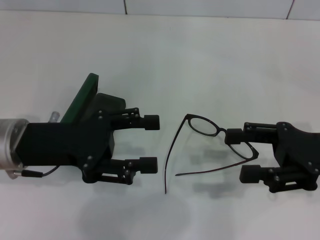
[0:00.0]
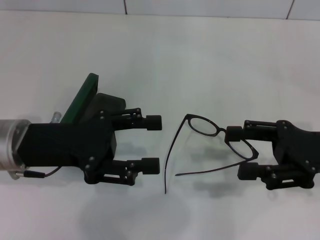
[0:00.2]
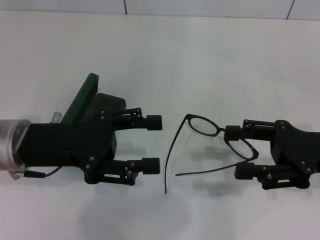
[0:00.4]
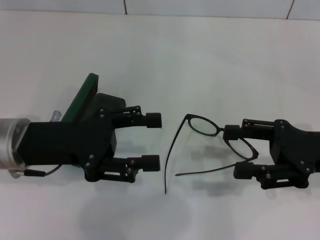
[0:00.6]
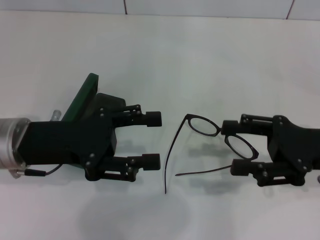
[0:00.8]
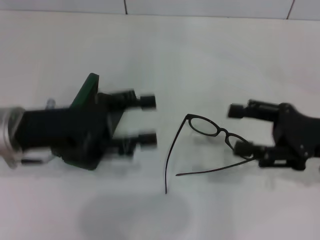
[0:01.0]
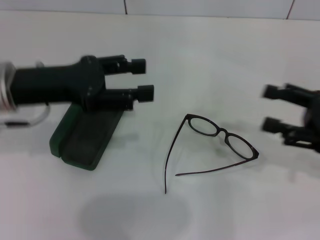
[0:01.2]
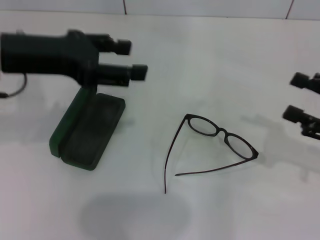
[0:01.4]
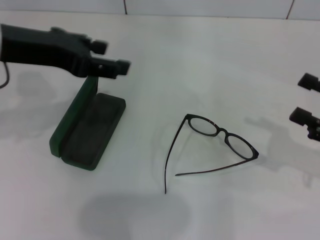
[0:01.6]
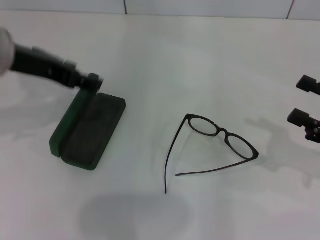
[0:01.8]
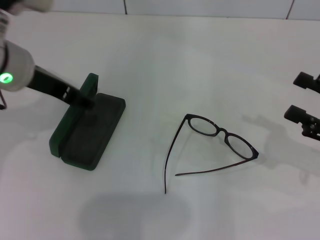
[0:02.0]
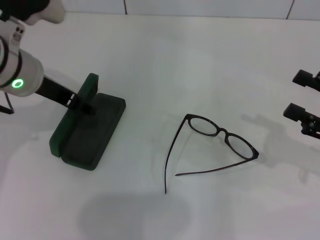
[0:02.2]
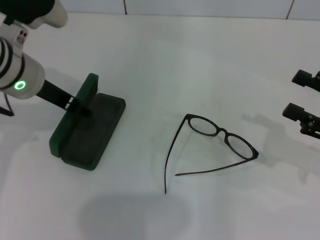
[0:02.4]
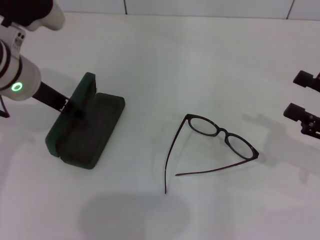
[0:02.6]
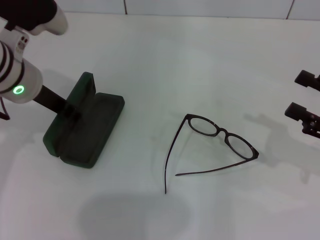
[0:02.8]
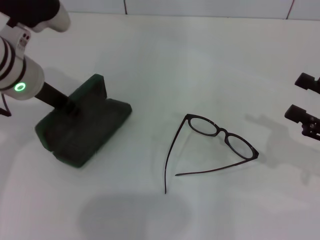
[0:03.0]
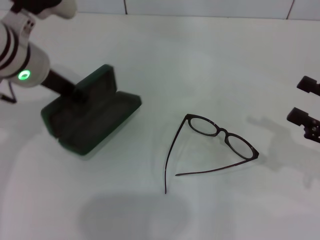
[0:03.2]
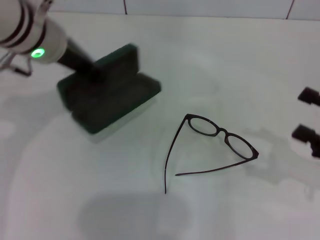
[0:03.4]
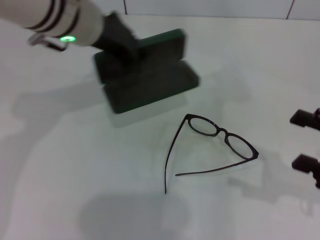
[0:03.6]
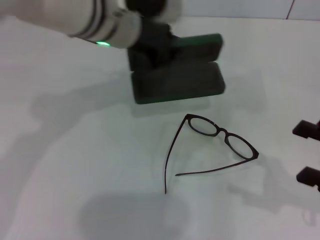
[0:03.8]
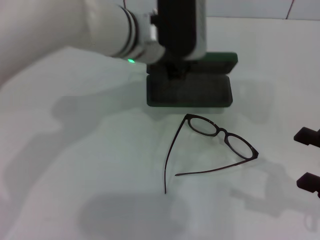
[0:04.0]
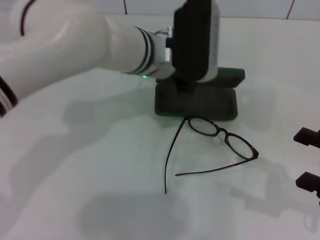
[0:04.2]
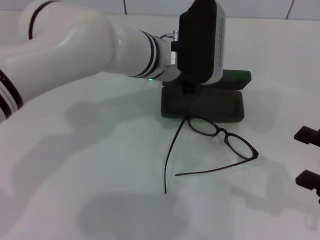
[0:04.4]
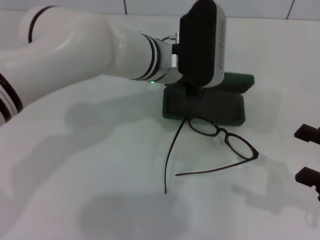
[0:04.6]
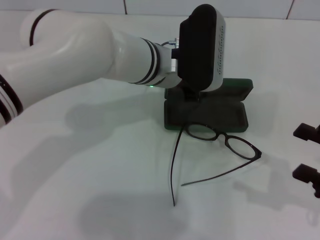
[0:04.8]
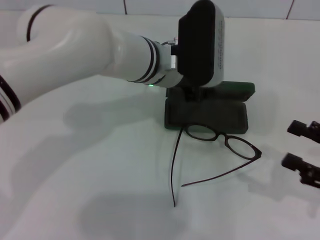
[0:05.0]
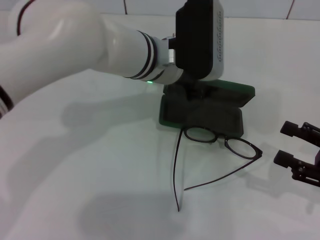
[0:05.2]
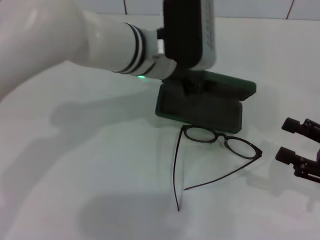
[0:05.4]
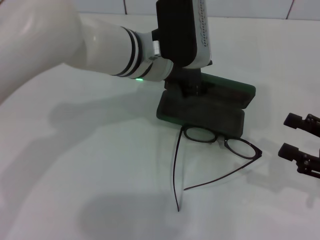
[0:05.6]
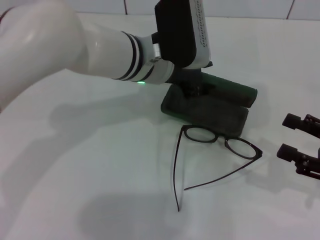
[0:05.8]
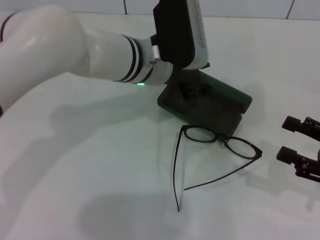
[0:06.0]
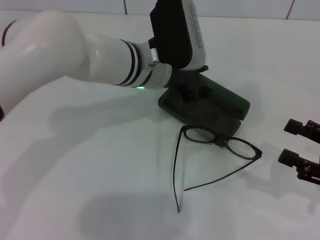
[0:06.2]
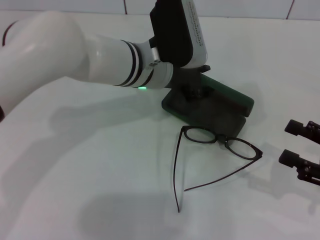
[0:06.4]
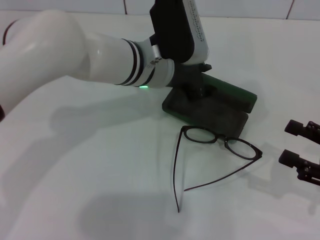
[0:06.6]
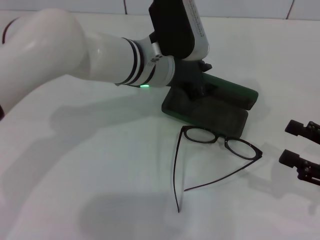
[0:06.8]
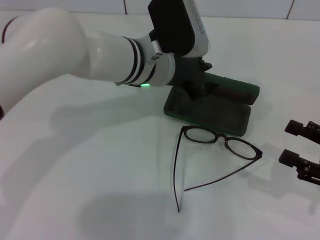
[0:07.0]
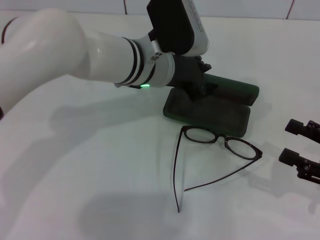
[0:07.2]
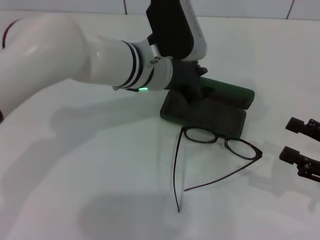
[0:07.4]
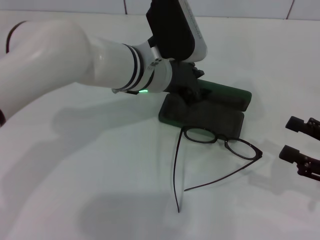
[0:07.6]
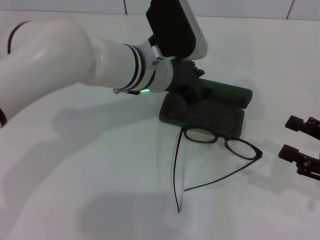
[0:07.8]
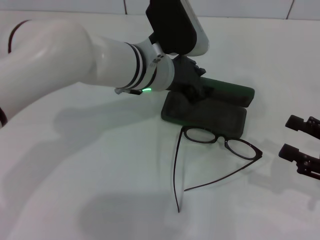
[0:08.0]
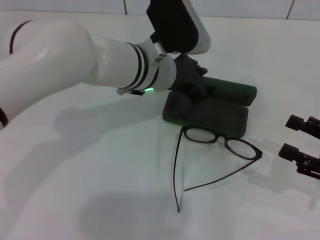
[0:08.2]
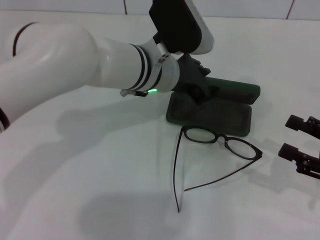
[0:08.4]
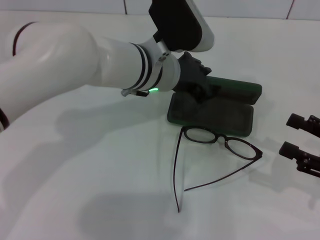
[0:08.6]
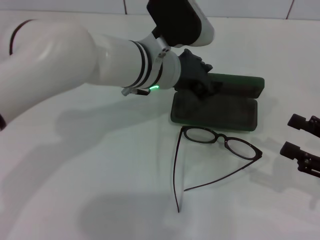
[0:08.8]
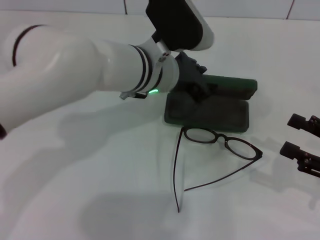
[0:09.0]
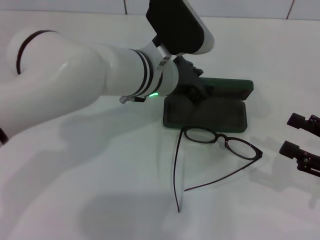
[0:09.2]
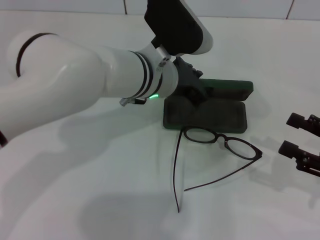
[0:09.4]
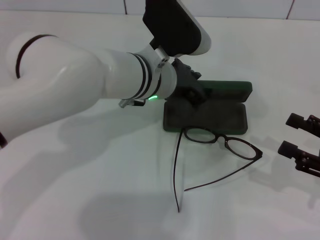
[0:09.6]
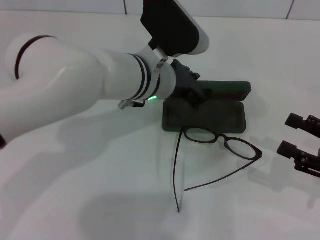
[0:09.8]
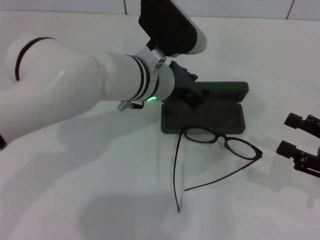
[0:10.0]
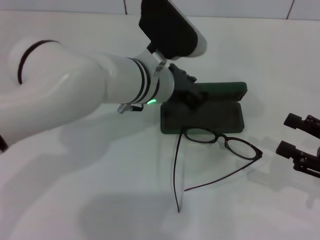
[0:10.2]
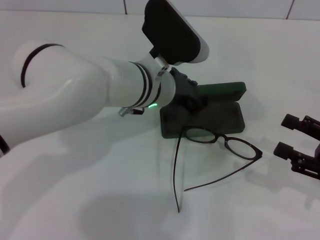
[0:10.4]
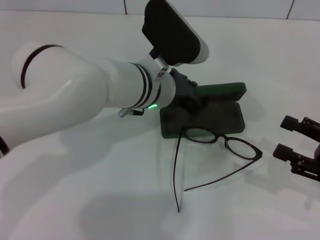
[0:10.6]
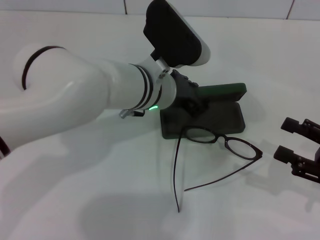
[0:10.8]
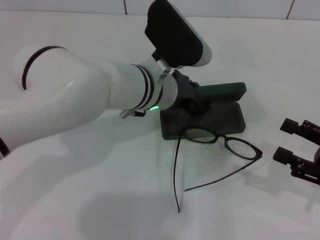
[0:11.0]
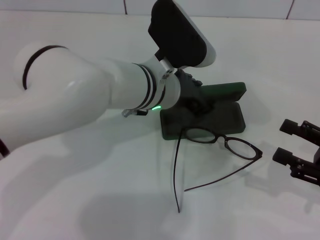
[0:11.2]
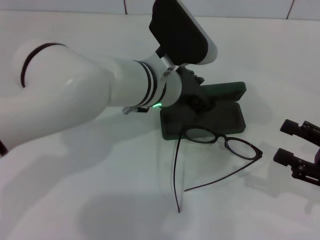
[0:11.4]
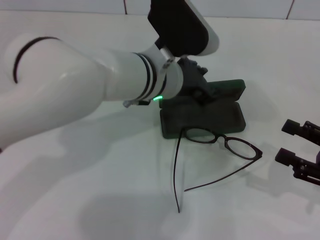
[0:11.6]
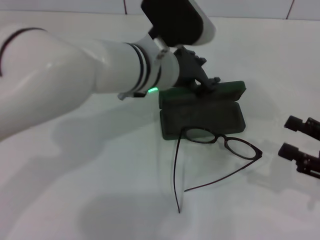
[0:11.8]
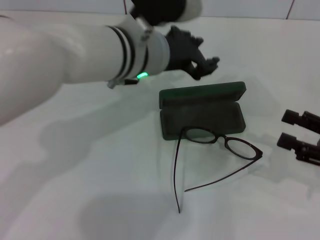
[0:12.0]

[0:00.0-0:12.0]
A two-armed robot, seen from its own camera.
Step, 0:00.0 to 0:02.8: Grab the glasses case with your left hand.
Step, 0:03.2 to 0:11.2: Place the glasses case in the center of the table with your left hand.
0:00.0 to 0:01.6: The left gripper heads upward, covering about 15 cm. Meanwhile the right gripper shifts some 5 cm to the right.
0:01.6 to 0:03.0: The left gripper goes roughly 10 cm downward, and closes.
0:03.0 to 0:04.4: The right gripper moves backward, some 5 cm. Meanwhile the left gripper shifts some 15 cm to the right, and closes.
0:04.4 to 0:06.0: The left gripper opens its fingers.
0:06.0 to 0:07.6: There are only small adjustments of the grippers.
0:07.6 to 0:10.4: The grippers move only a little.
0:10.4 to 0:12.0: The left gripper travels upward by some 5 cm.

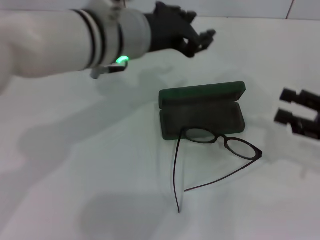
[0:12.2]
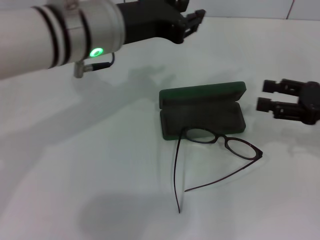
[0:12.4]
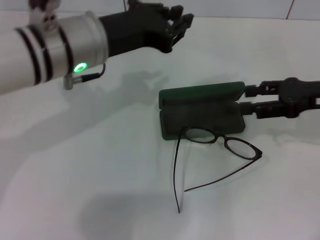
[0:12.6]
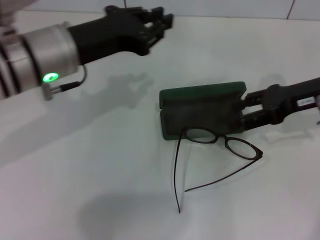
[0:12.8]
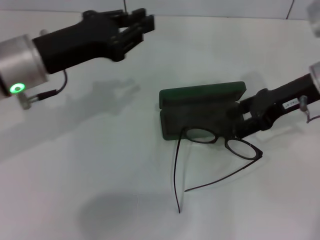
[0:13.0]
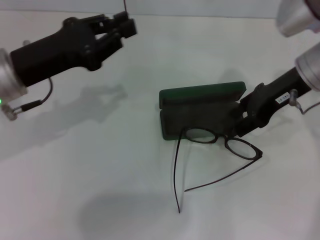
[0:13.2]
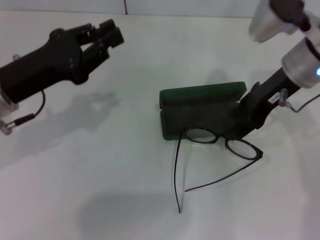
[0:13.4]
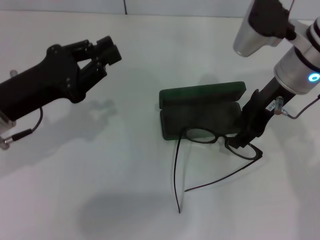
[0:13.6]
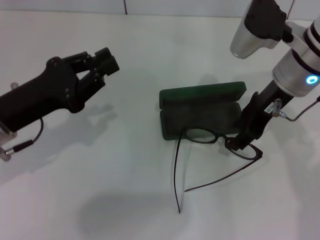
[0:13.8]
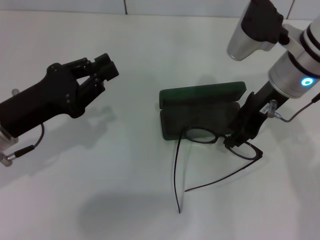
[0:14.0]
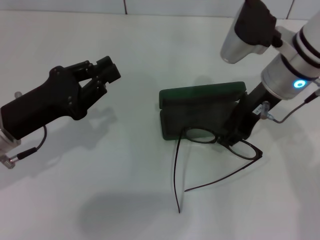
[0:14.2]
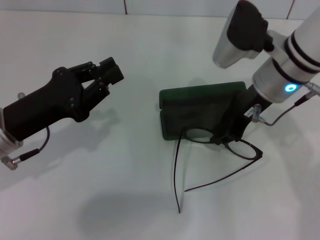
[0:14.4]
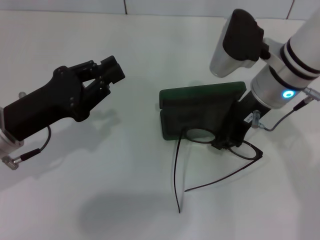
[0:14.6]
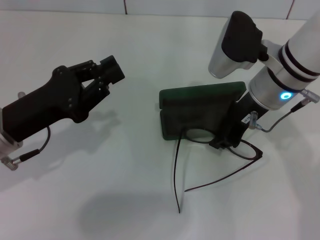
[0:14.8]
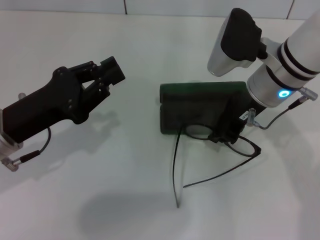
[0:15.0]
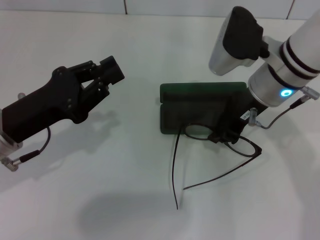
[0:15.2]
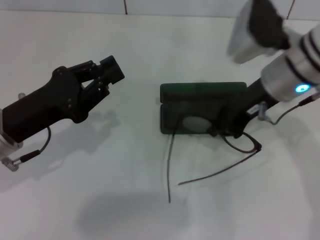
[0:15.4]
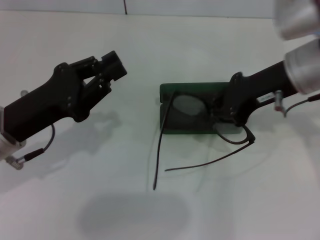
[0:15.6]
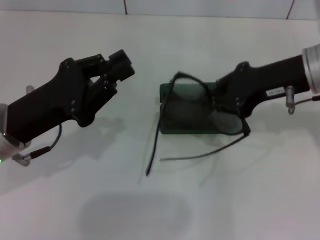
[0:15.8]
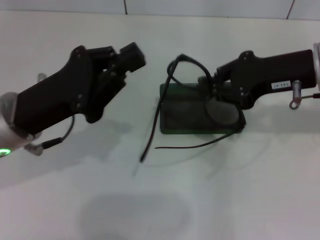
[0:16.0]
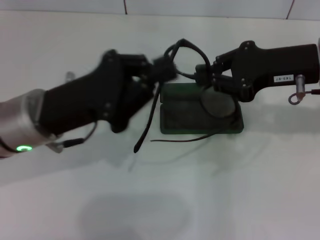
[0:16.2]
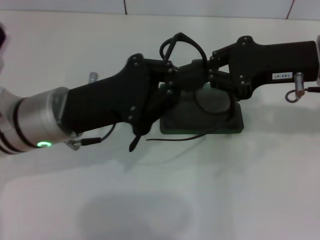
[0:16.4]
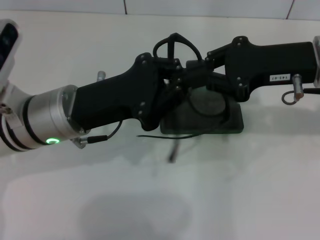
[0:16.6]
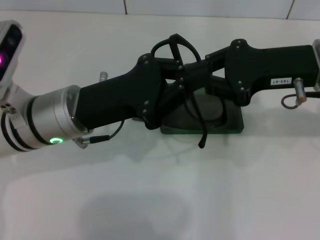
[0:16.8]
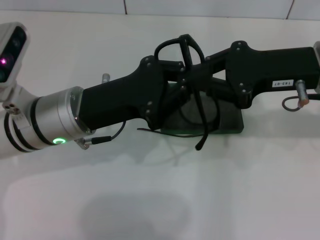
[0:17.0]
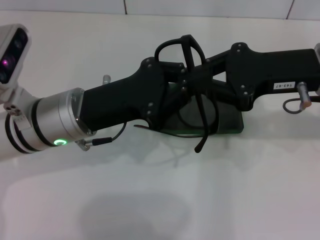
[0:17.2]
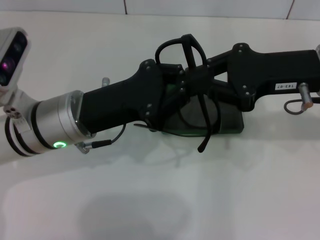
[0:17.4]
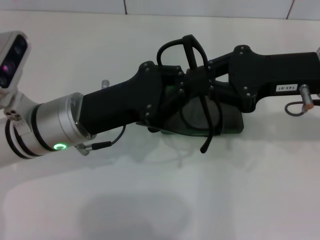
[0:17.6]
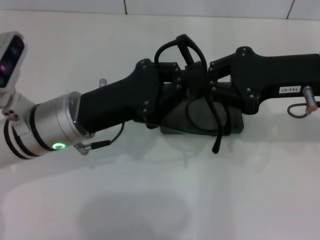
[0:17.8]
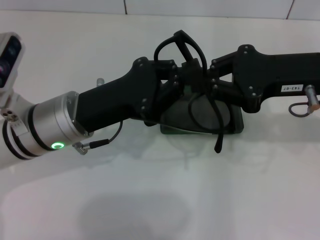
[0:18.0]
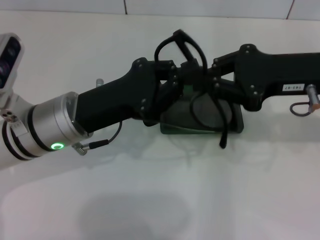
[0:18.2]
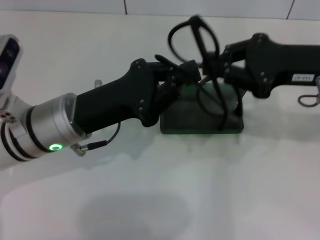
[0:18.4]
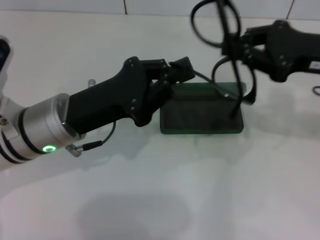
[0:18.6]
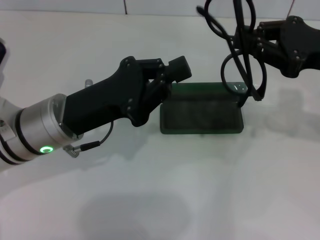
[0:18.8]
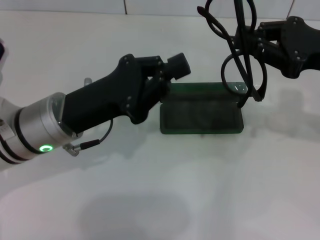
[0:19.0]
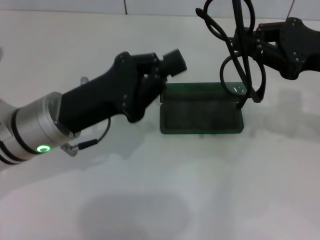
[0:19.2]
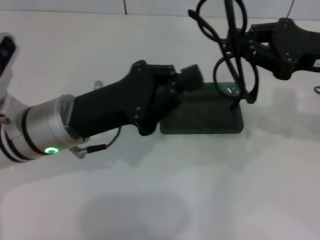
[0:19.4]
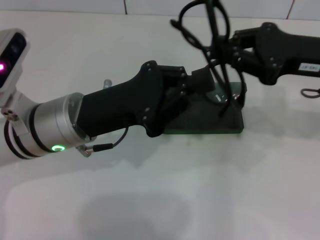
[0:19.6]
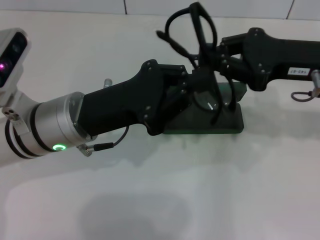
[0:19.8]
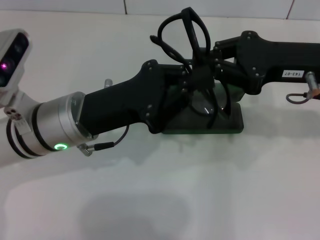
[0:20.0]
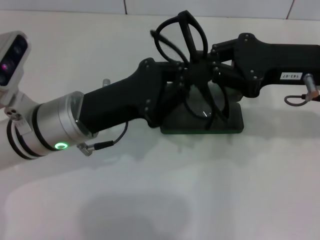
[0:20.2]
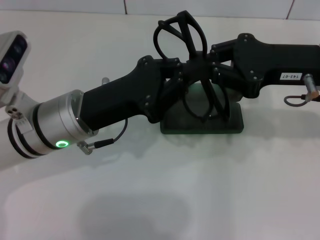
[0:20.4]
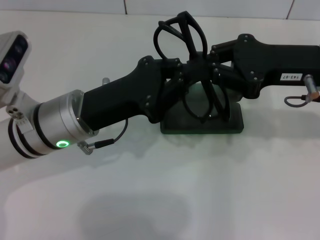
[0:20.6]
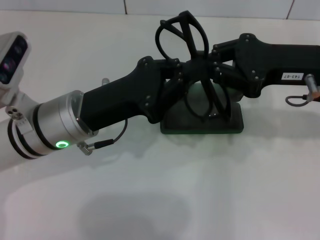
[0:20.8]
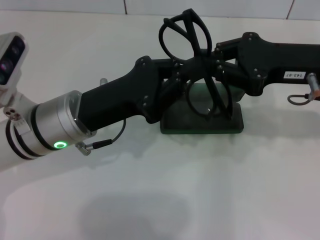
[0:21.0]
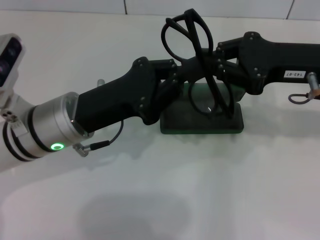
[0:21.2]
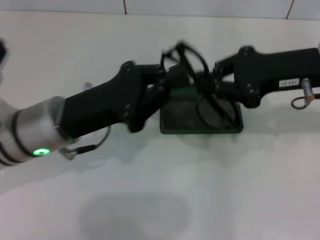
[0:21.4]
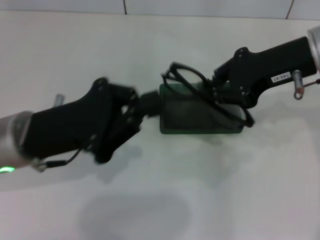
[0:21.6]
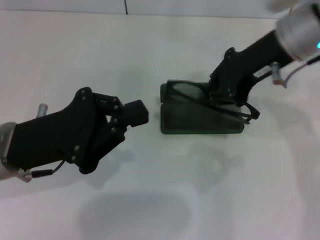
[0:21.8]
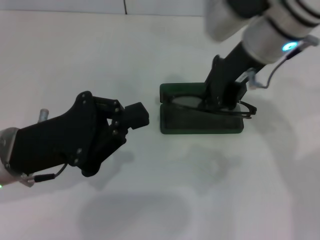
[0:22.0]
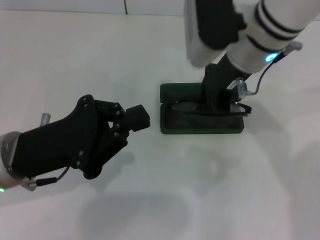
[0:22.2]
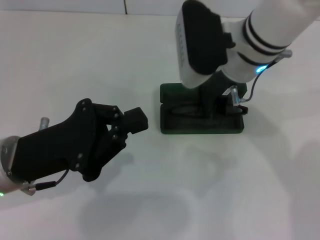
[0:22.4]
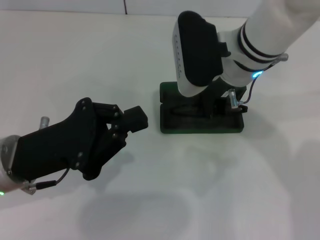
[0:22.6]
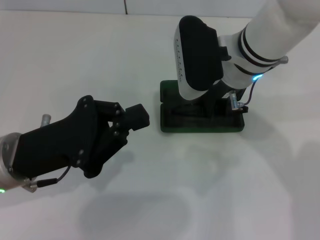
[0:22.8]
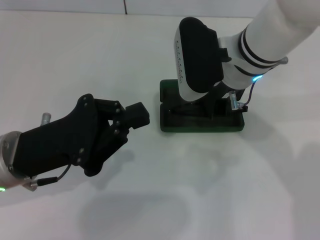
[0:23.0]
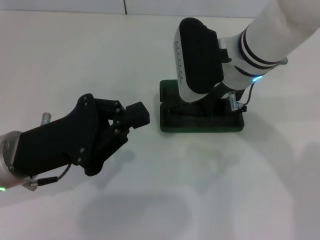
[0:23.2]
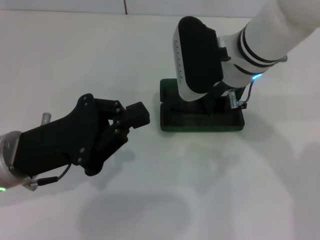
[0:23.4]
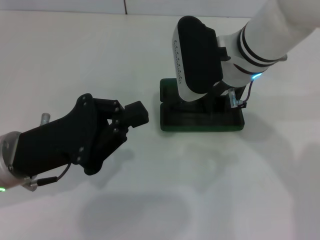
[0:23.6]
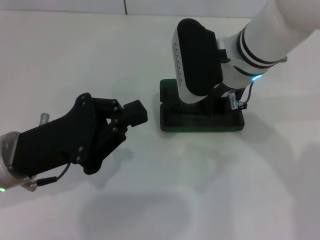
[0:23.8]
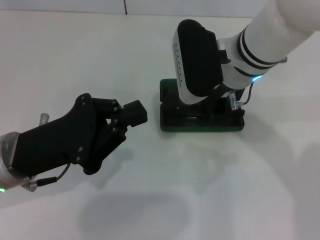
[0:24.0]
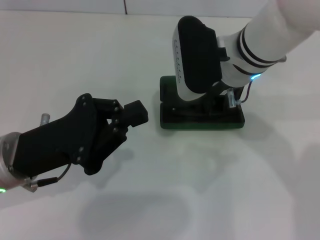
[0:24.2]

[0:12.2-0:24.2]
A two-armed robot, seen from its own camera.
Step, 0:12.2 to 0:14.6: Grab the eyeglass frame with your right hand.
Step, 0:14.8 to 0:20.8: Fold the frame with your left hand.
0:12.2 to 0:13.8: The right gripper shifts about 20 cm to the left, forward and upward. Meanwhile the left gripper shifts approximately 20 cm to the left, downward and backward, and closes.
0:13.8 to 0:15.2: The right gripper closes its fingers.
0:15.2 to 0:16.6: Both grippers move to the right, approximately 10 cm.
0:16.6 to 0:21.2: The grippers stay close to where they were, moving slightly.
0:21.2 to 0:22.6: The left gripper travels to the left and backward by approximately 10 cm. The right gripper shifts roughly 15 cm to the left.
0:22.6 to 0:24.2: Both grippers stay put.
